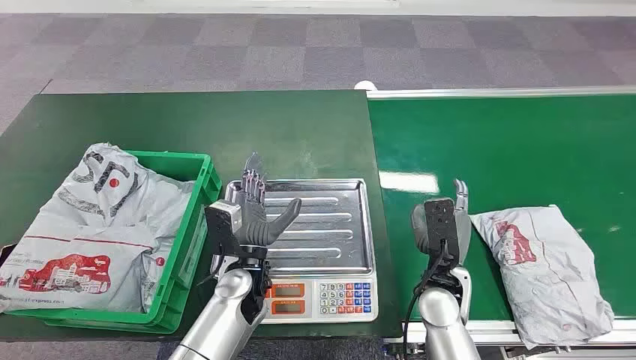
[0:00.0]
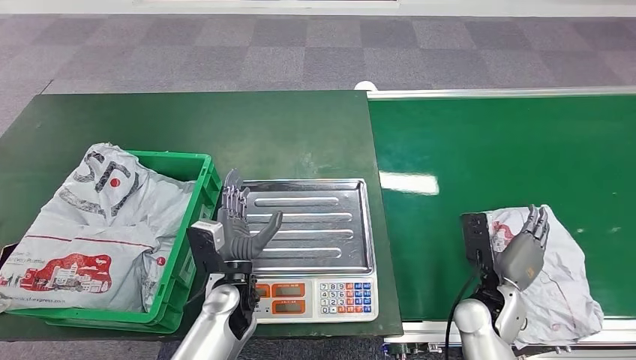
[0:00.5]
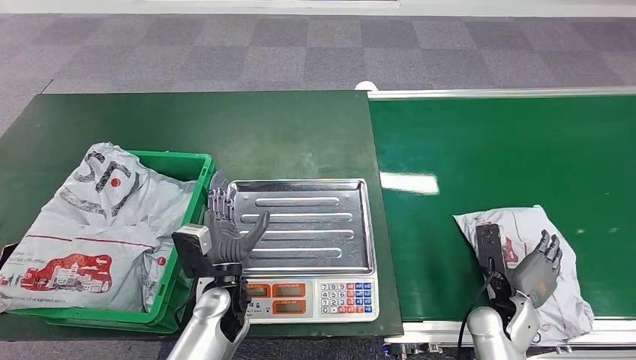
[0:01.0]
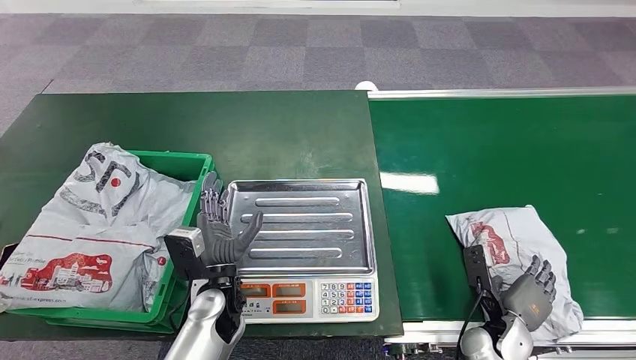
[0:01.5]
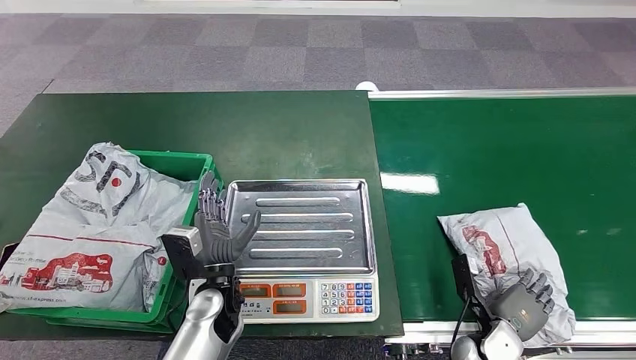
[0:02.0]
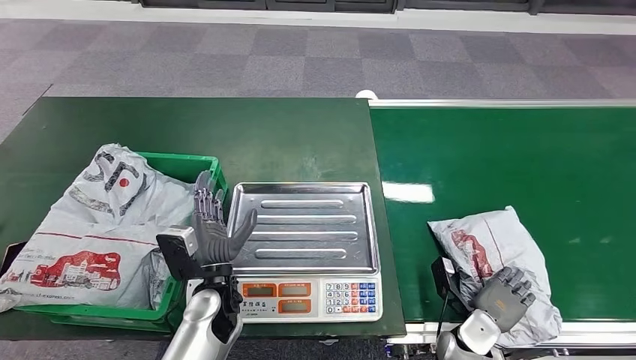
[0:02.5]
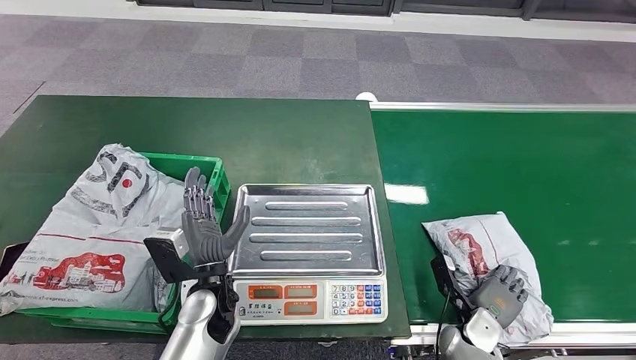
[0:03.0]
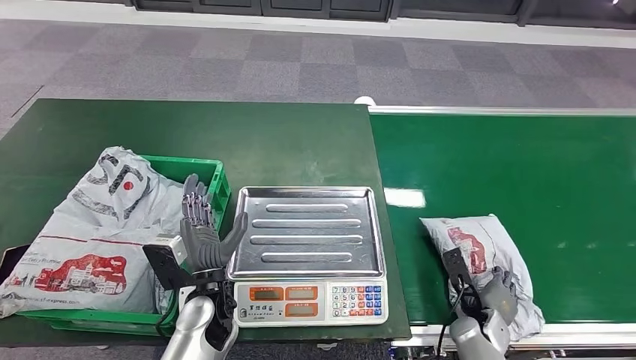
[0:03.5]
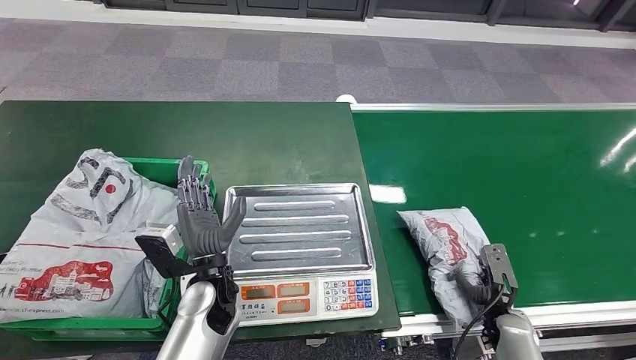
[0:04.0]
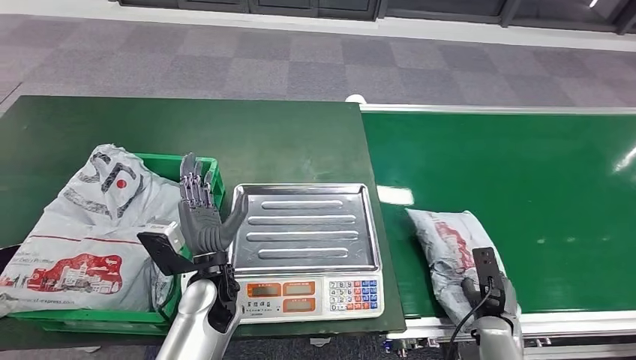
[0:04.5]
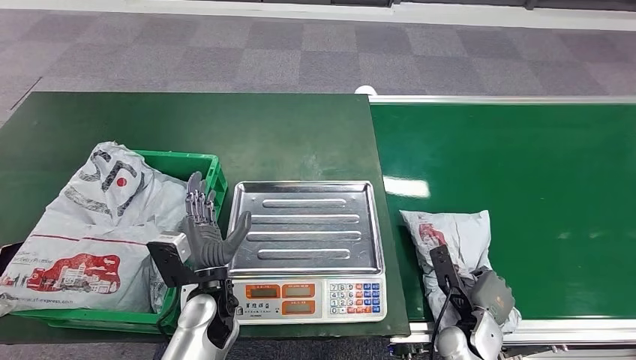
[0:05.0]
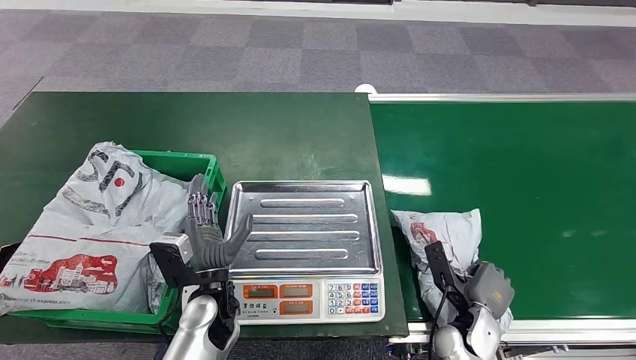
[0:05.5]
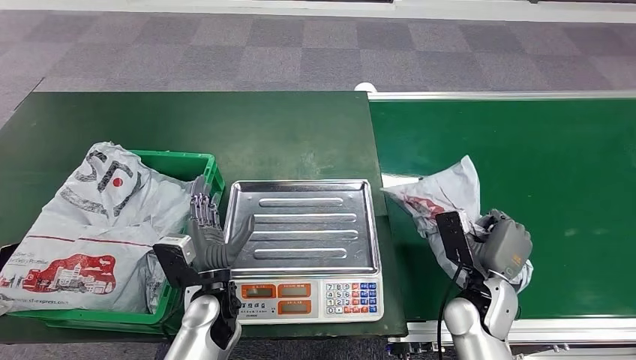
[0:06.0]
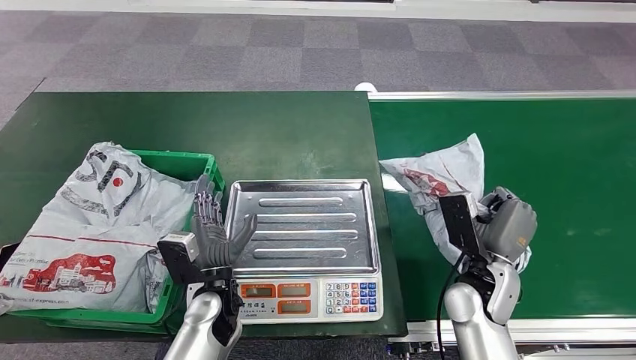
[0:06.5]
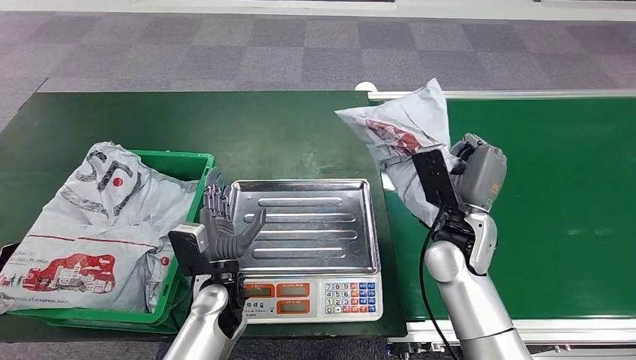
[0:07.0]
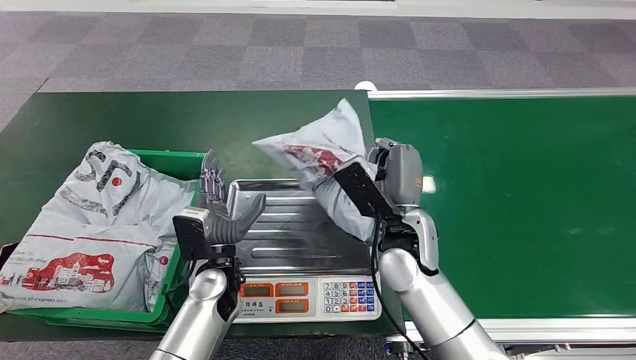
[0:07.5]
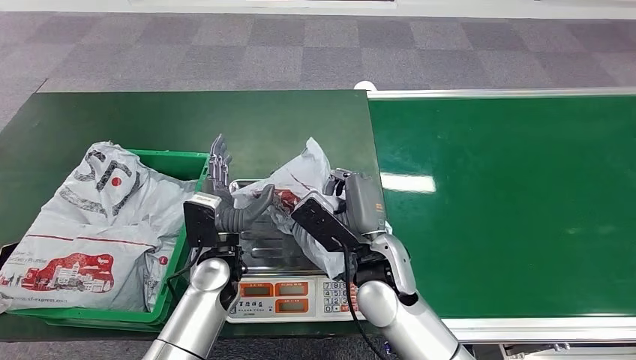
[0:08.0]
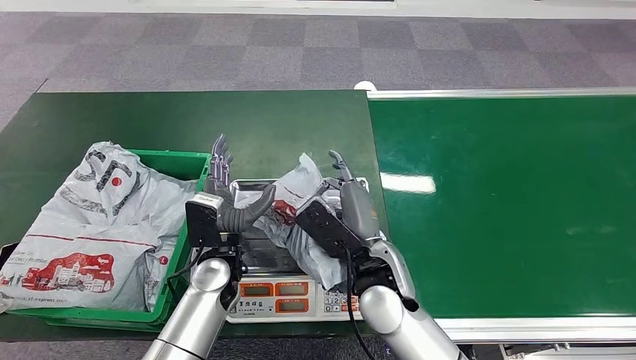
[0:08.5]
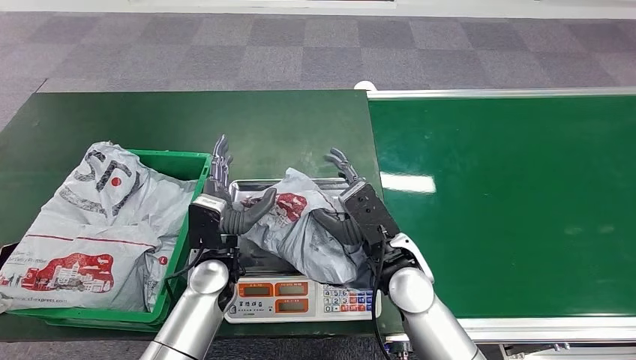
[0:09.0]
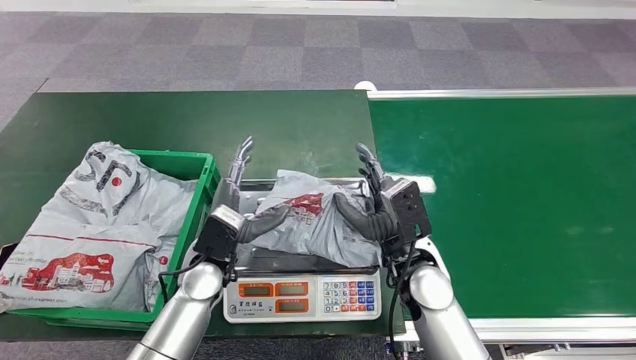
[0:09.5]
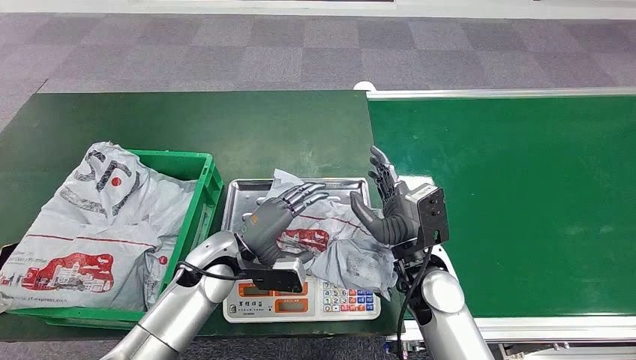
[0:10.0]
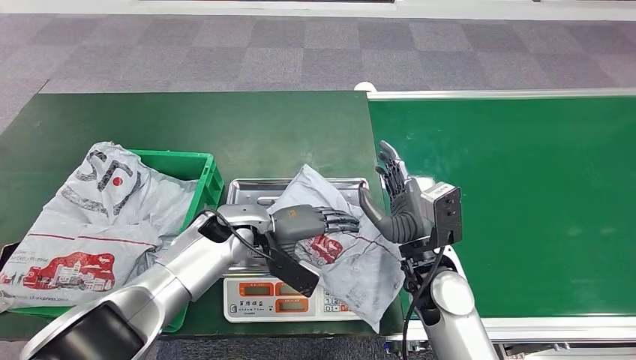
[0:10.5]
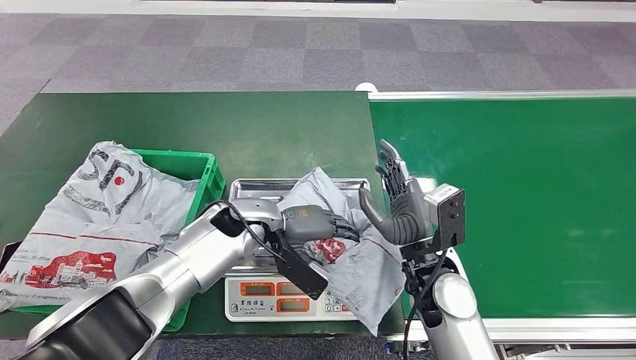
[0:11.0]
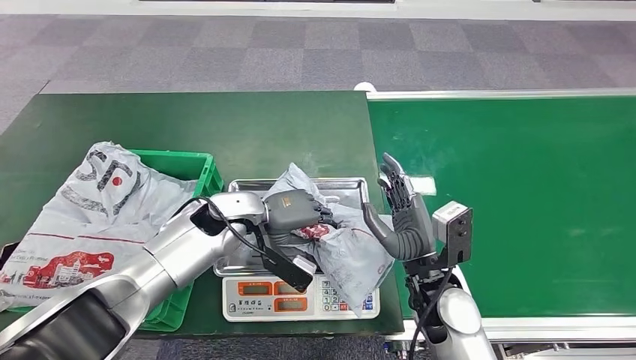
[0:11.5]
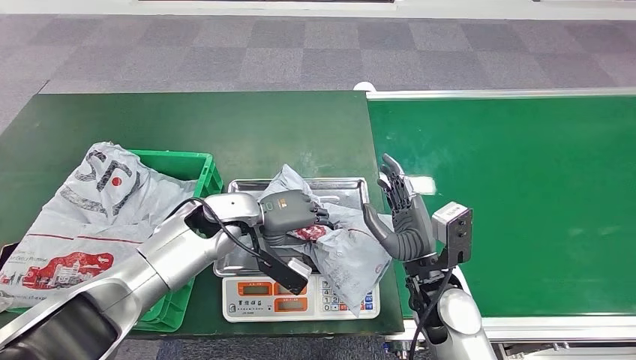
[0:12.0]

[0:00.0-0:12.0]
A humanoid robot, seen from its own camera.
Step, 0:00.0 to 0:06.5: Pick up the package from the conveyor belt.
Step, 0:07.0 to 0:09.0: Place the package onto the inbound machine.
0:08.0 to 0:10.0: The right hand travels to the right by approximately 5 cm.

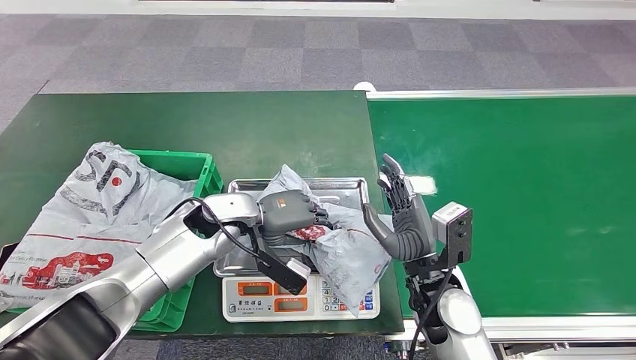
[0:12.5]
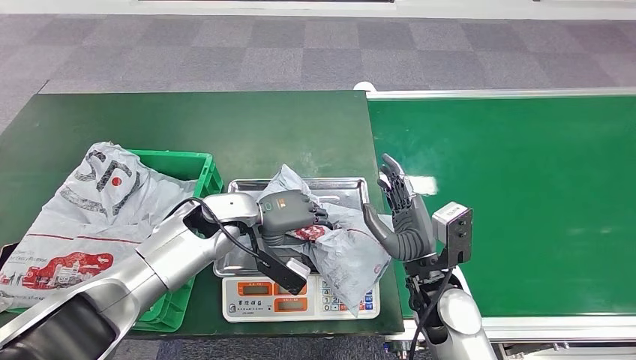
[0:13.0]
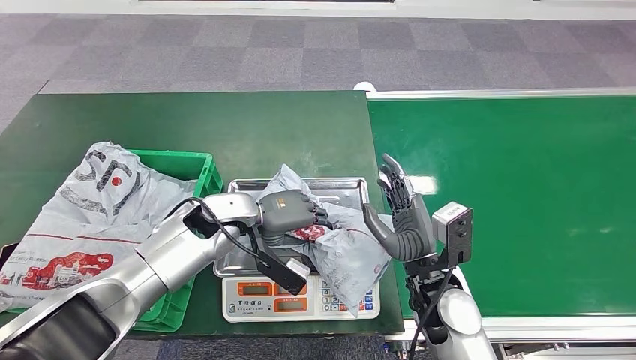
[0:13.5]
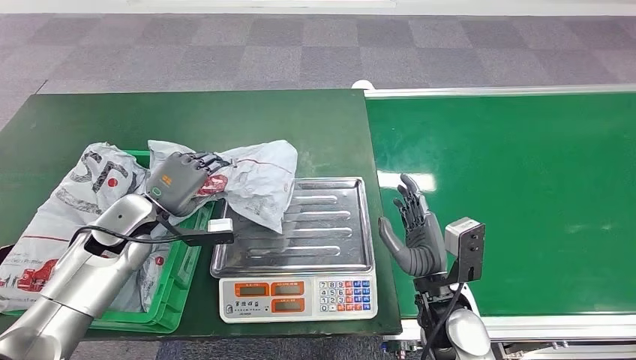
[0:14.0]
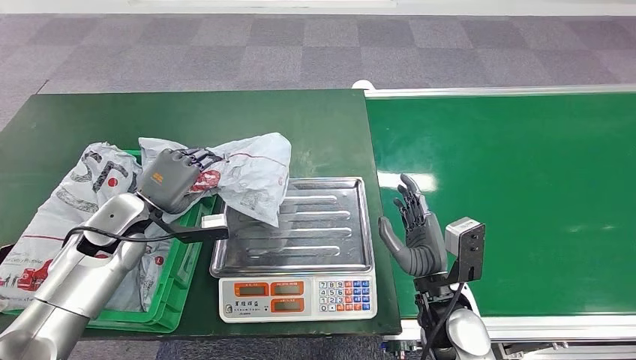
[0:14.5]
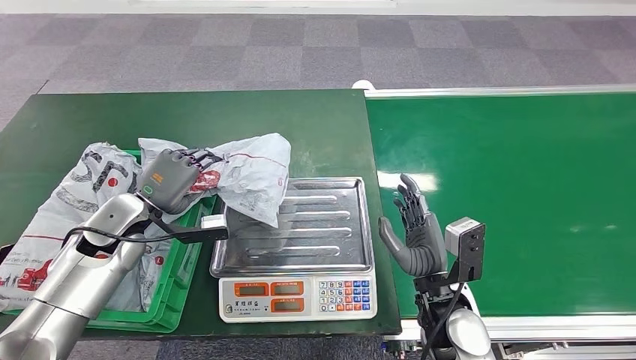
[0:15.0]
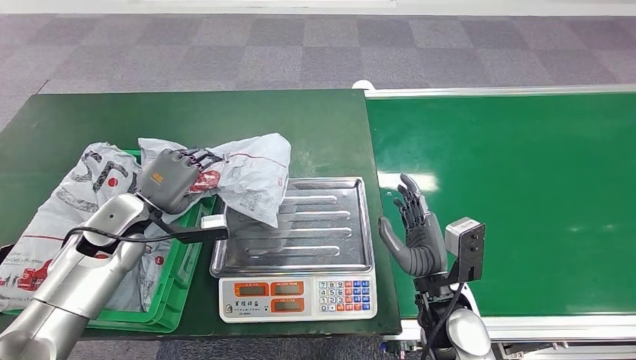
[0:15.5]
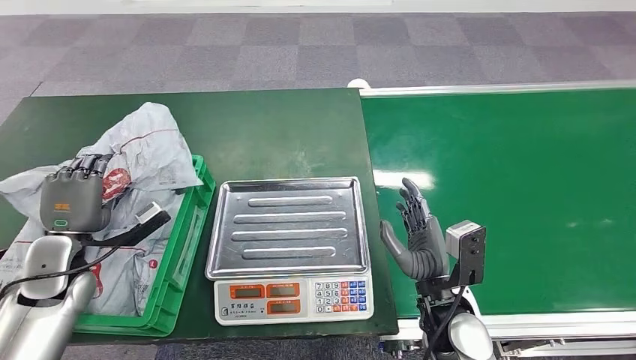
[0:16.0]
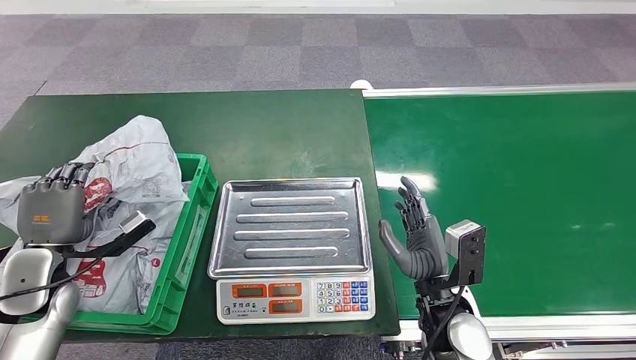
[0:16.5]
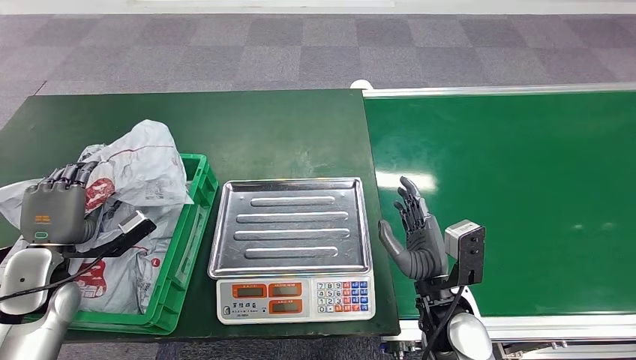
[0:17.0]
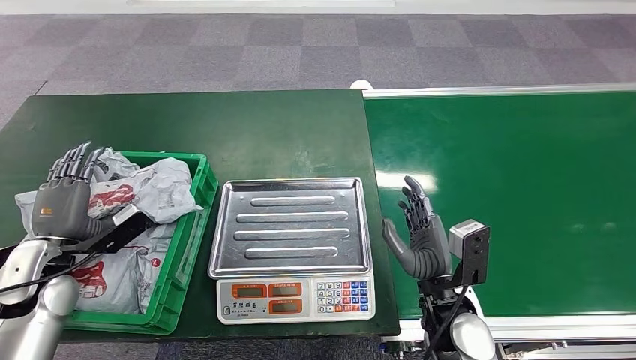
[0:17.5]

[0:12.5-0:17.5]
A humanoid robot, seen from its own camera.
Step, 0:12.5 to 0:14.5: Pick up the package from the inbound machine.
Step, 0:15.0 to 0:17.5: Place the package into the parcel locker.
